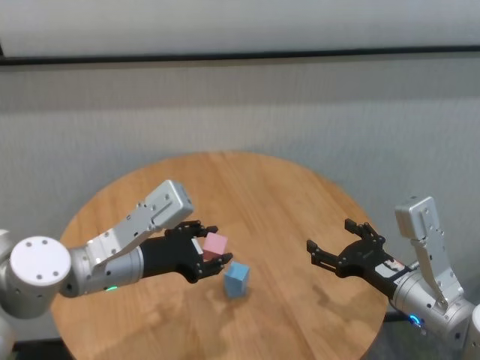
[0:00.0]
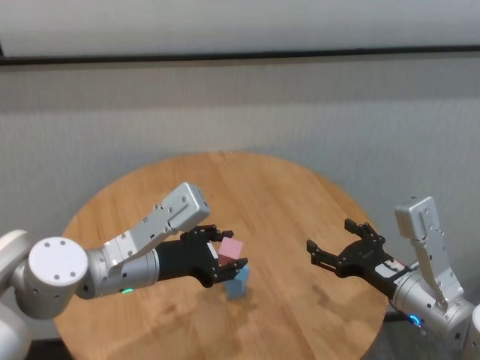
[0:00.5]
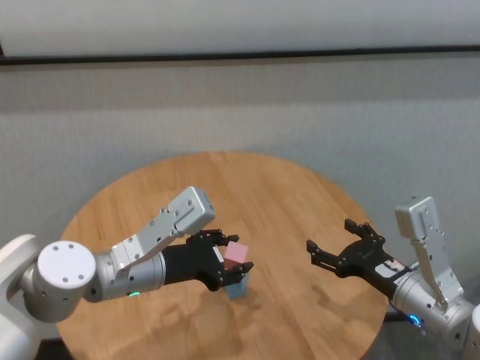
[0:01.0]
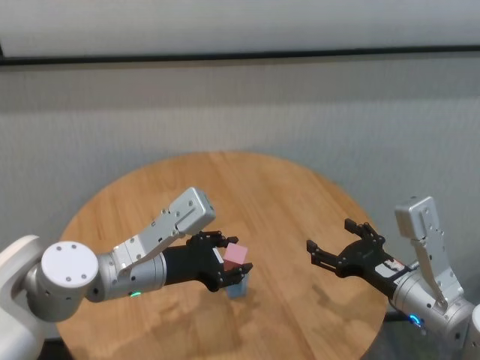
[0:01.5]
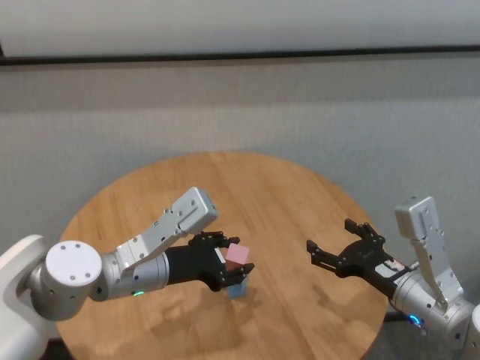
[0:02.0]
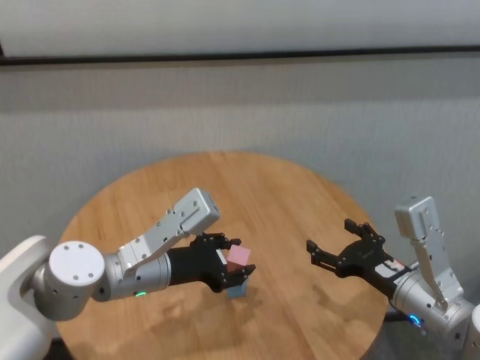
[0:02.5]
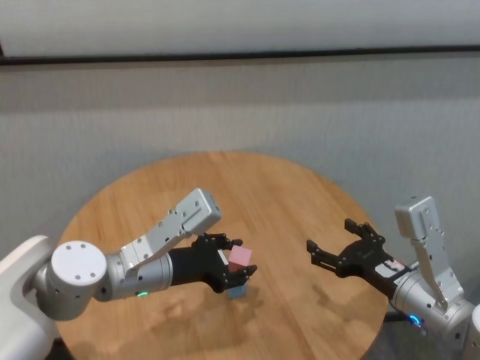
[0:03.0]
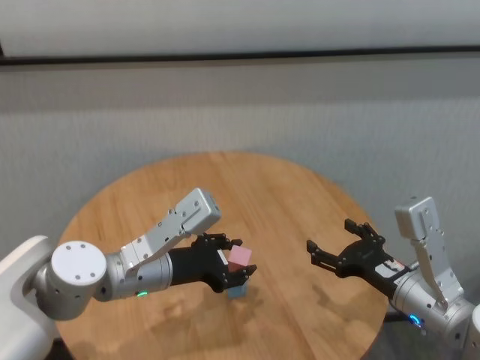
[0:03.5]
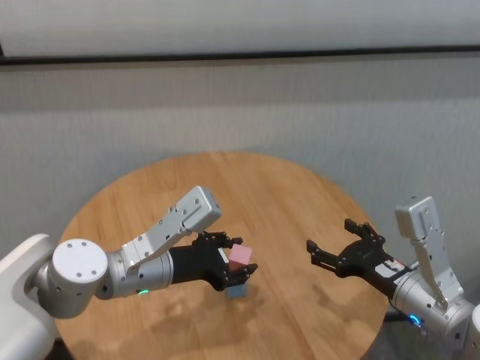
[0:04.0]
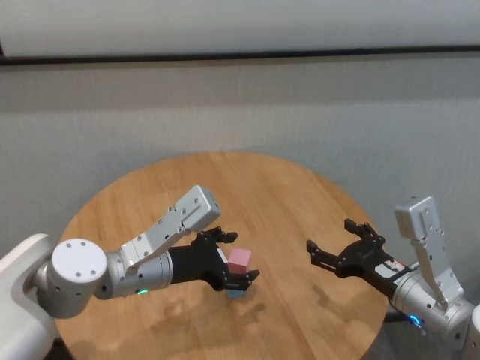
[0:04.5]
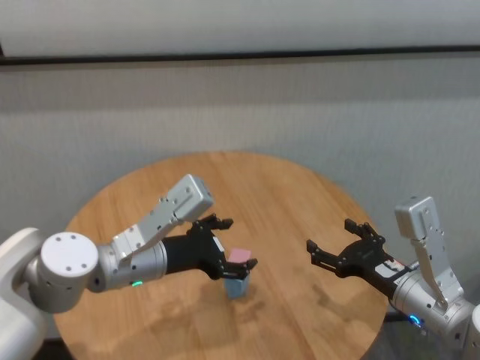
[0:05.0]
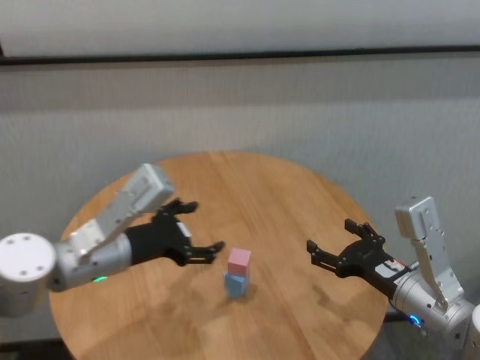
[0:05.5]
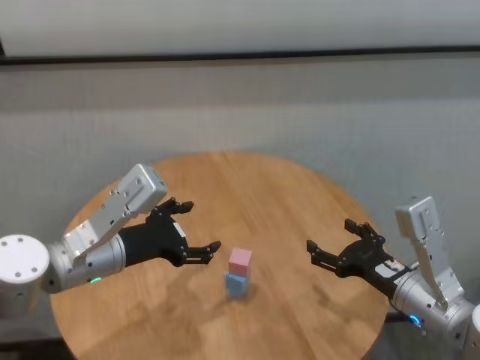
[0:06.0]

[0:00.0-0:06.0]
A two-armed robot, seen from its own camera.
Task of the whole recording: stack building blocks on the table.
Step, 0:00.0 to 0:04.5: Place the pink building block on the blue building blocks with left gripper.

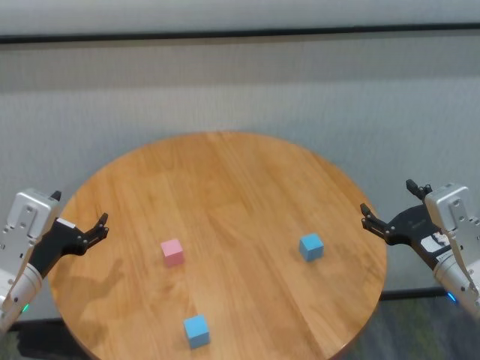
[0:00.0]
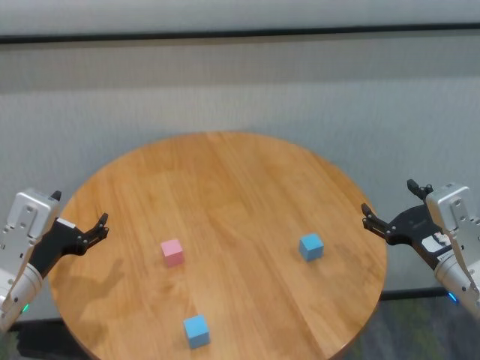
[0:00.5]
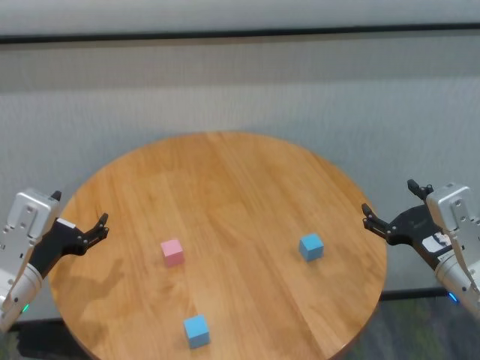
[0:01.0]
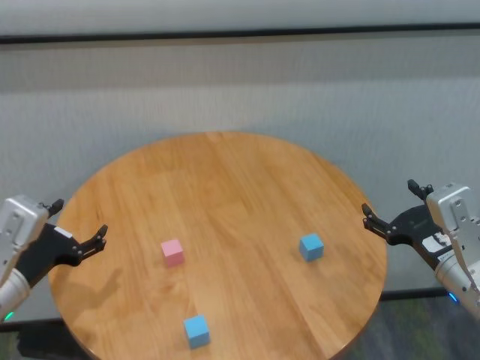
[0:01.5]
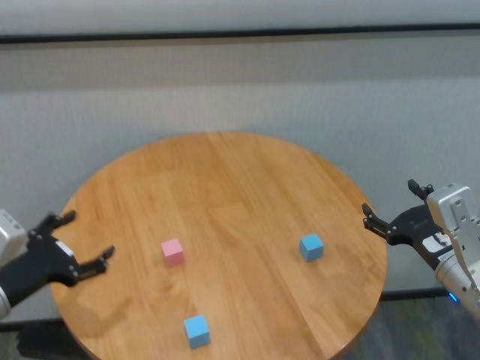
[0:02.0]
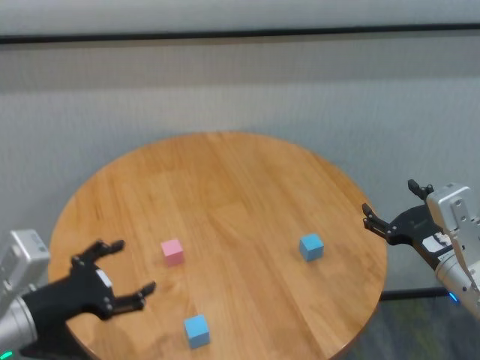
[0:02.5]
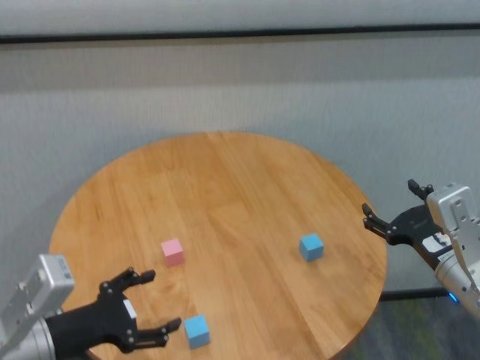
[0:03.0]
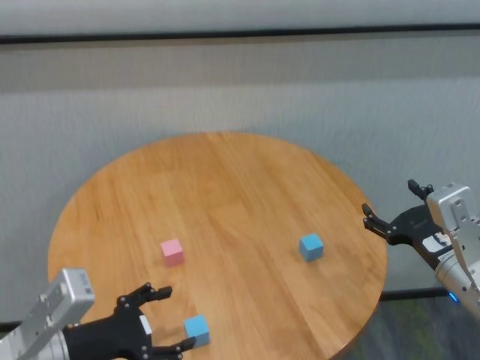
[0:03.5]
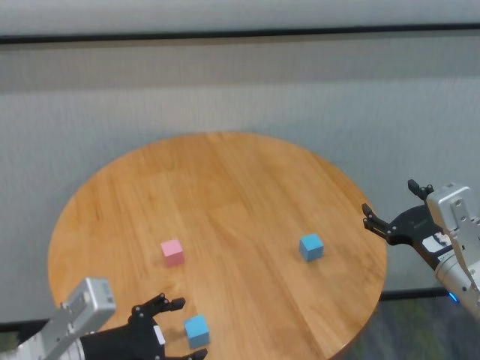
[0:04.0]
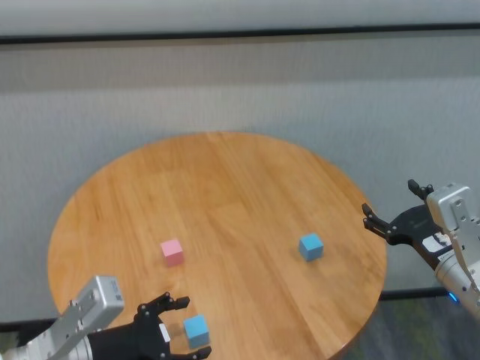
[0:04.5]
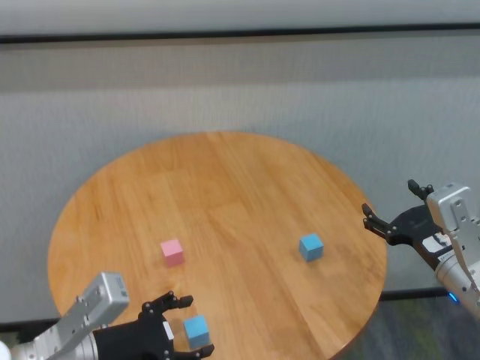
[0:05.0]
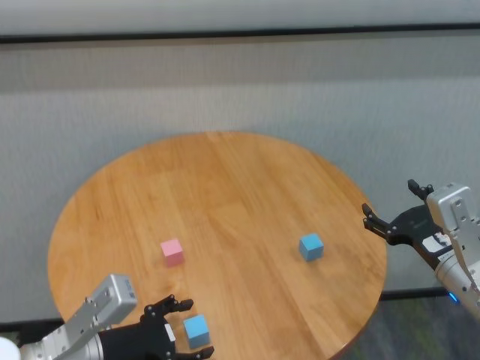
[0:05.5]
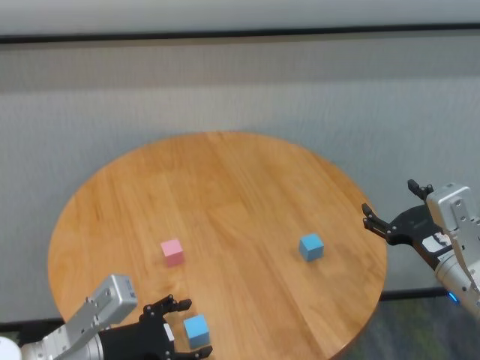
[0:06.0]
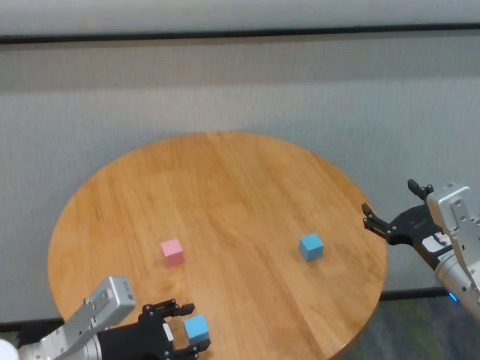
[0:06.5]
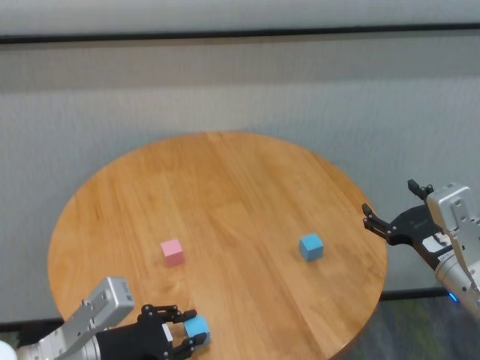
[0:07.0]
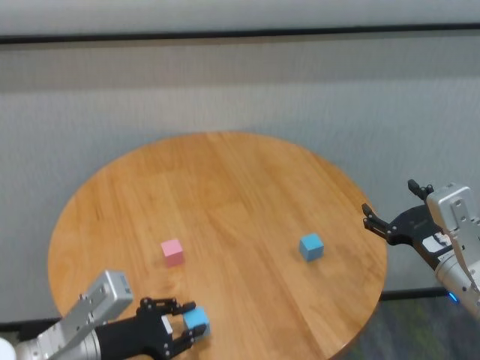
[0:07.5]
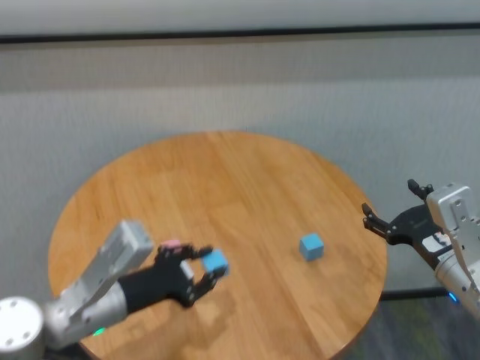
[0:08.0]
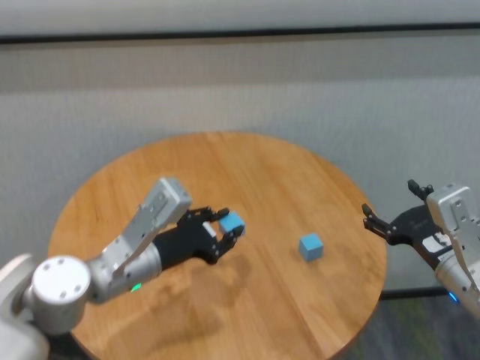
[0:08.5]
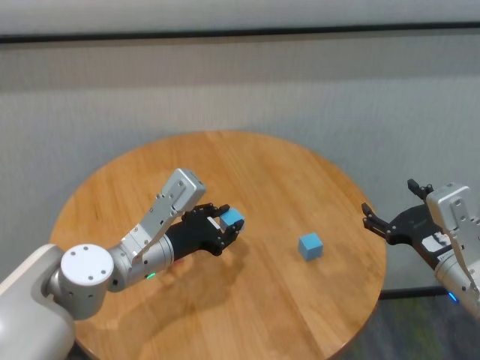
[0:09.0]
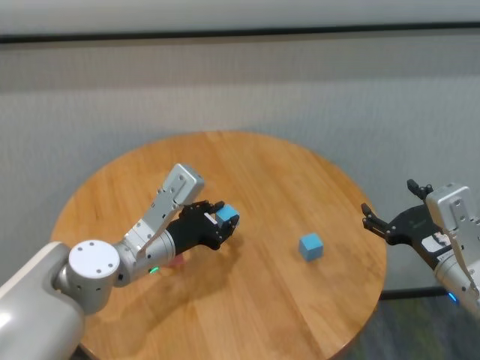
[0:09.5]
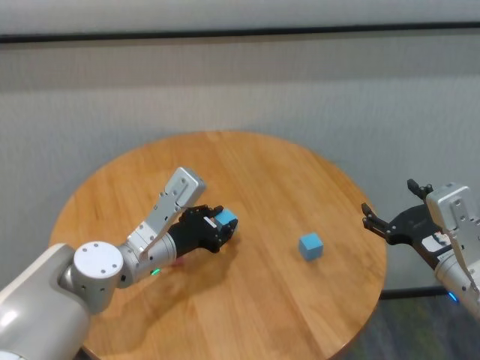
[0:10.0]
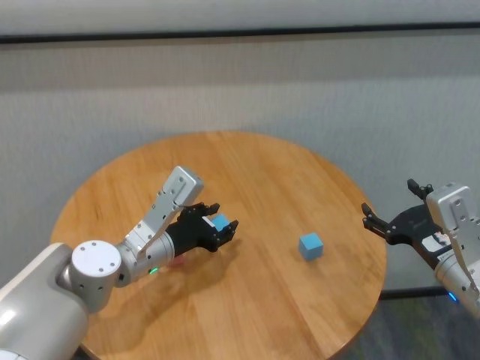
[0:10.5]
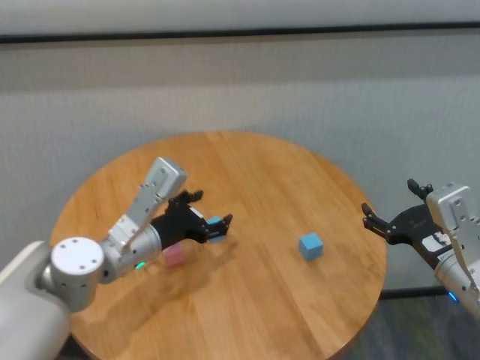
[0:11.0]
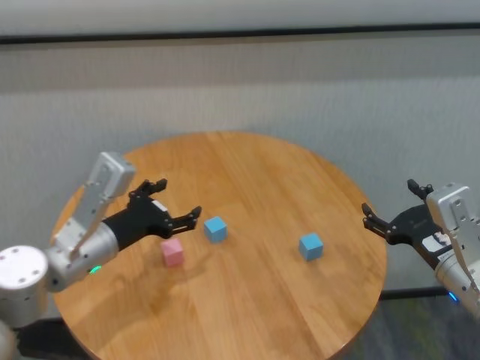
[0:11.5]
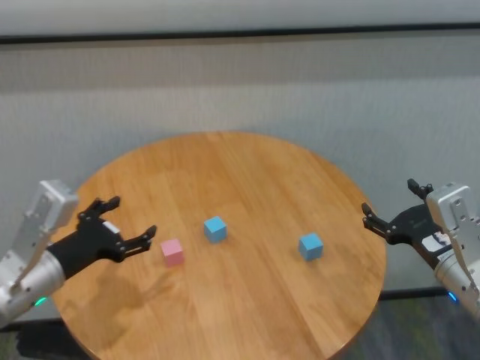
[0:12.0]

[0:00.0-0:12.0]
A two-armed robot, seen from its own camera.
Task of the whole recording: stack building blocks on the table.
Step, 0:00.0 to 0:07.0: Grasp the blue building block with left gripper.
Step, 0:07.5 to 0:10.5: Place the blue building block in the center of table with left gripper.

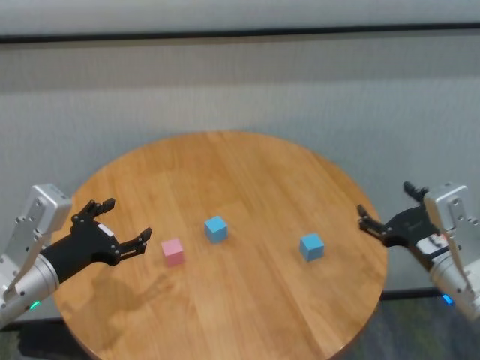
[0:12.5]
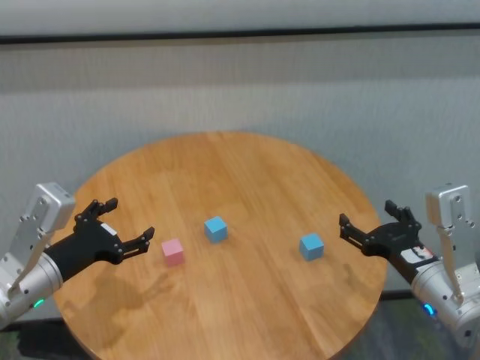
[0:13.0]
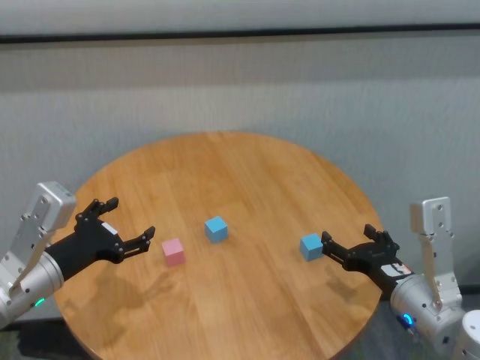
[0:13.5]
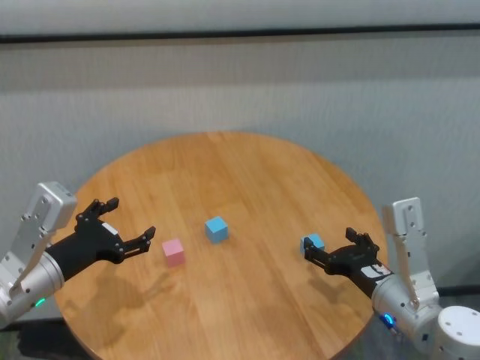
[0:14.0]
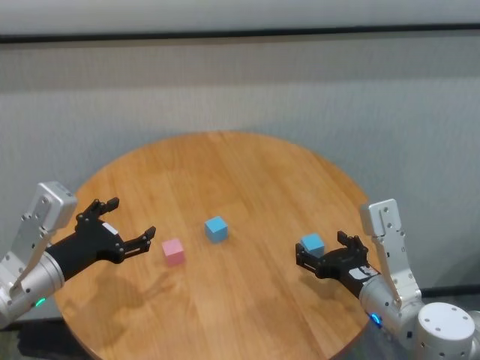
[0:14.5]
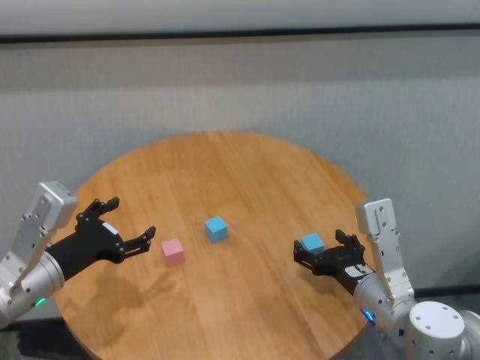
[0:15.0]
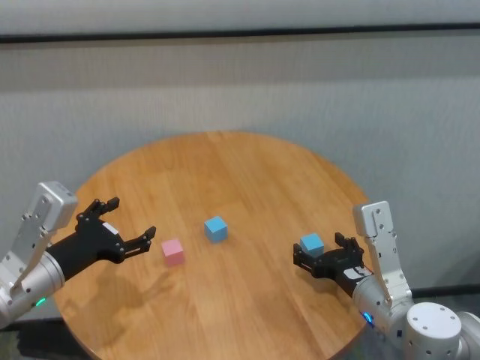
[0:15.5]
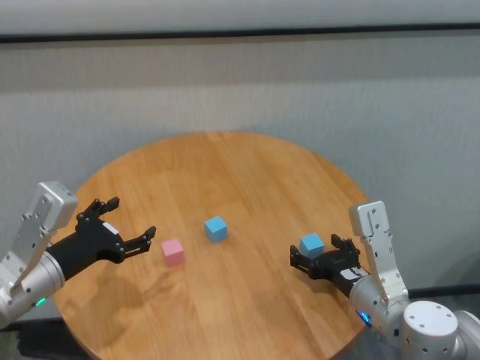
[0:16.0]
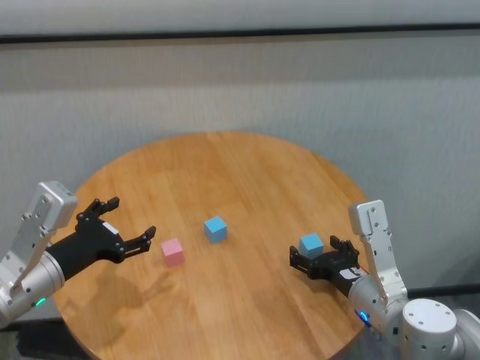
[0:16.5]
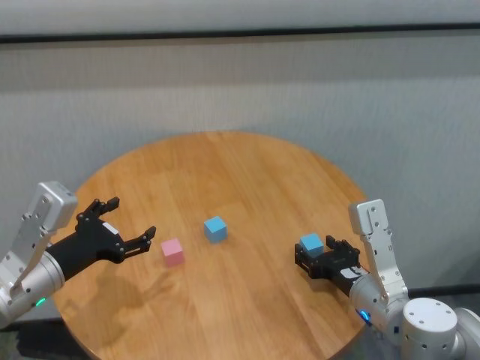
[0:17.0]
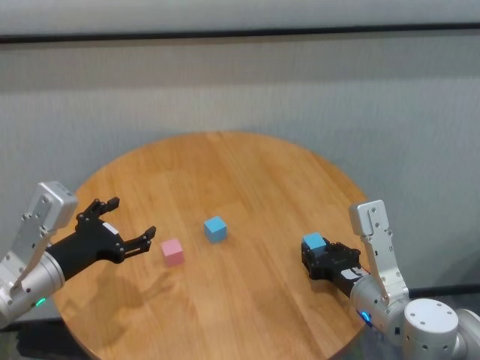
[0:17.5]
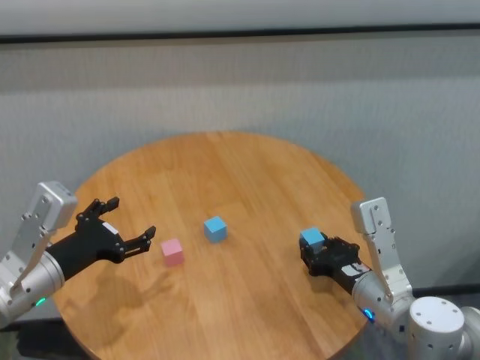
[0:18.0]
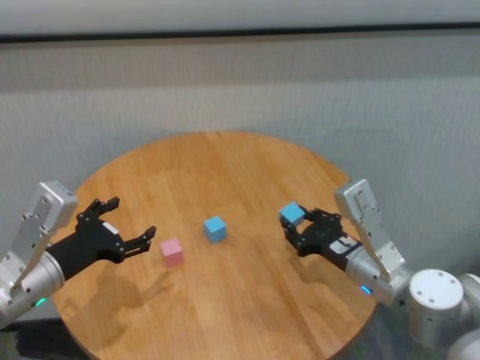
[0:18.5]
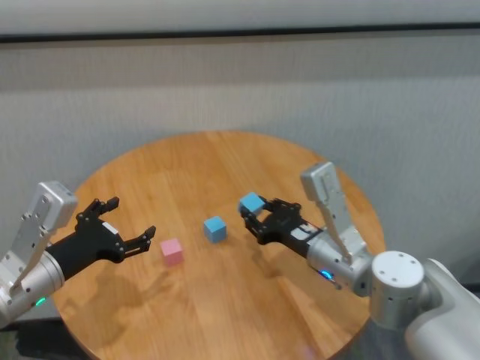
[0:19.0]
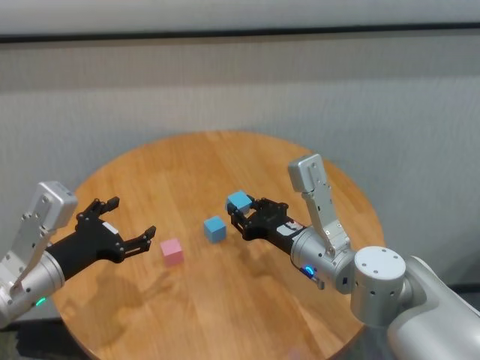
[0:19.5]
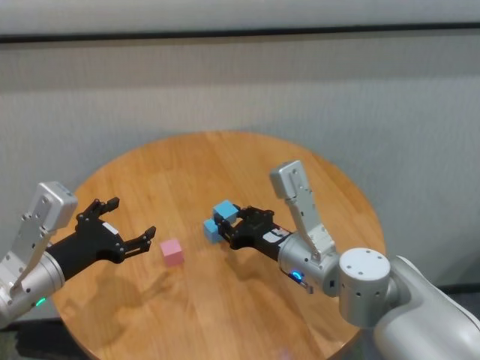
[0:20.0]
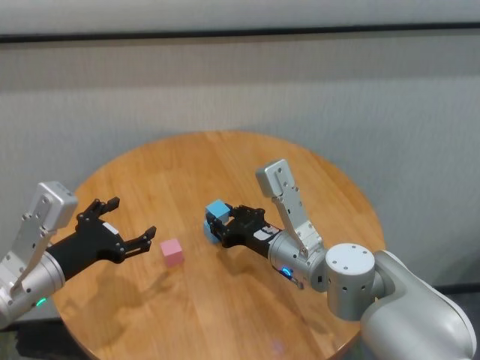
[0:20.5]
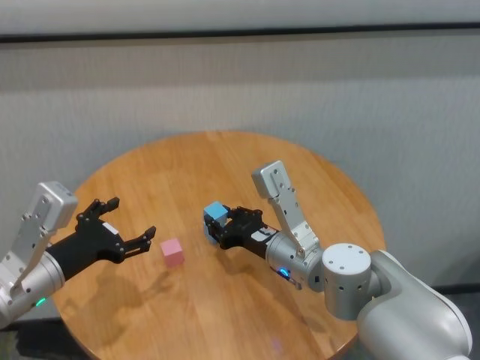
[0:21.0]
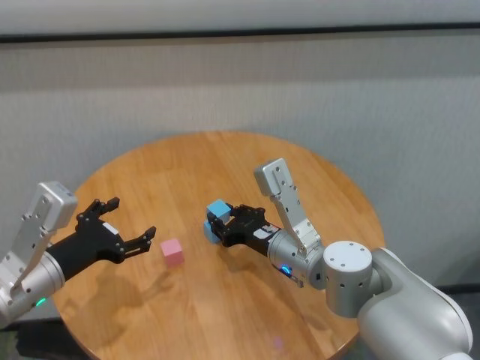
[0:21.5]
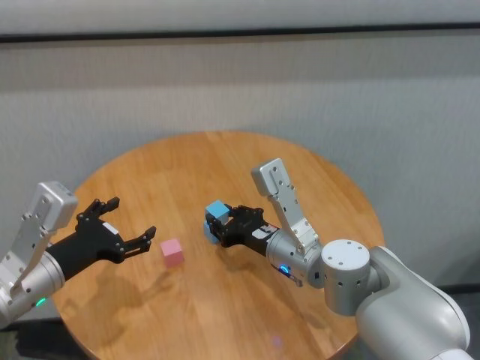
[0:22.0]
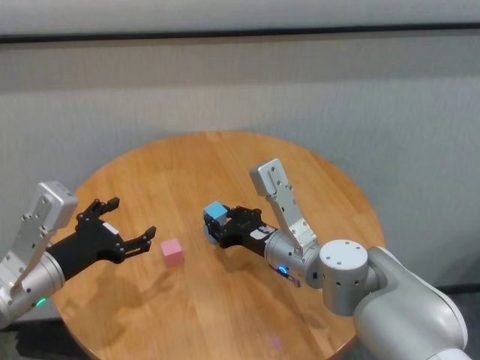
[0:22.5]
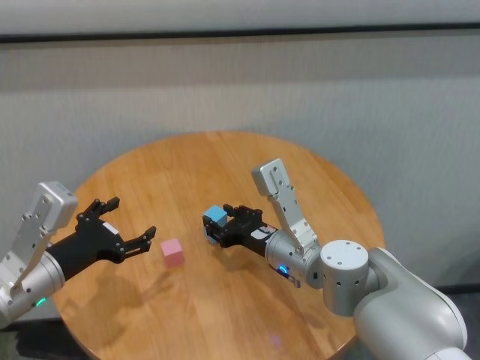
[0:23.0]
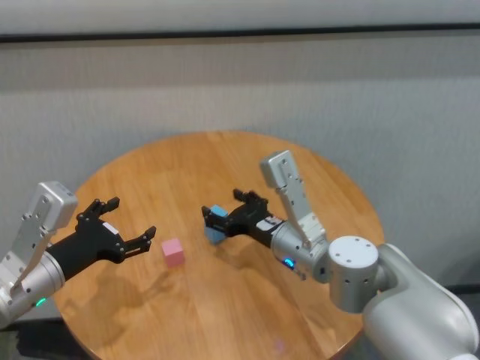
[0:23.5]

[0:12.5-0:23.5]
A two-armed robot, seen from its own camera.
Task of the whole recording: stack building blocks on the table.
Step, 0:12.5 to 0:17.0: Grasp the blue building block with right gripper.
Step, 0:18.0 to 0:23.0: Place the blue building block on the blue building blocks with right gripper.
